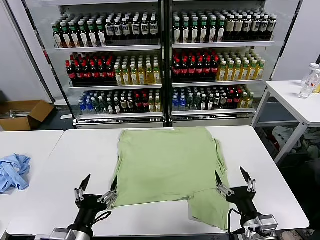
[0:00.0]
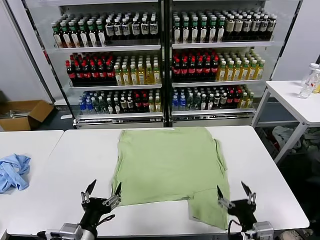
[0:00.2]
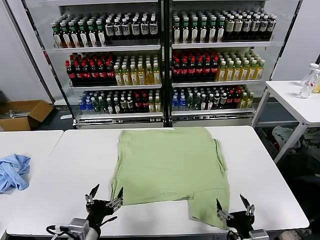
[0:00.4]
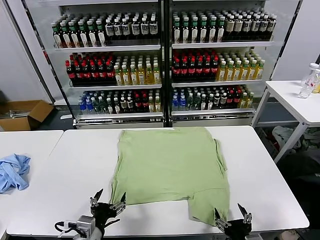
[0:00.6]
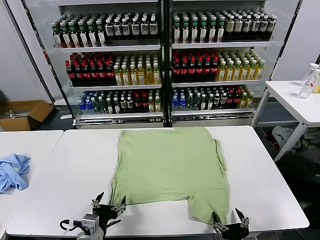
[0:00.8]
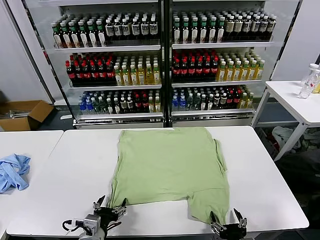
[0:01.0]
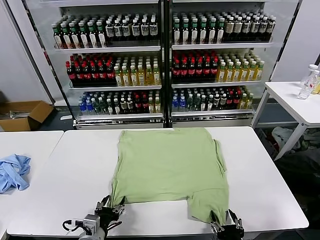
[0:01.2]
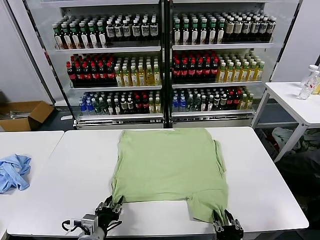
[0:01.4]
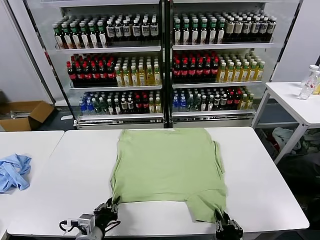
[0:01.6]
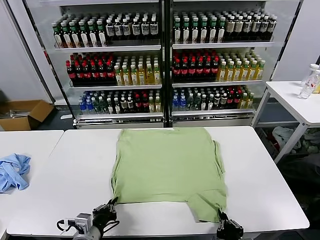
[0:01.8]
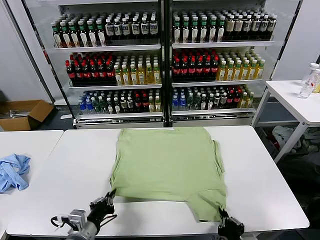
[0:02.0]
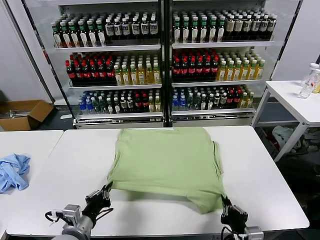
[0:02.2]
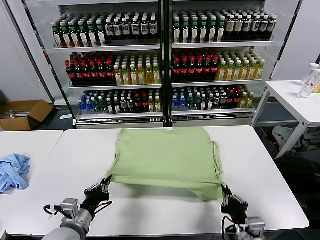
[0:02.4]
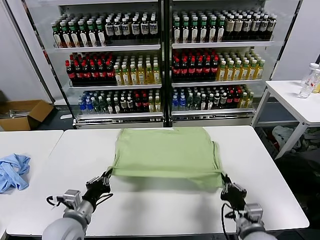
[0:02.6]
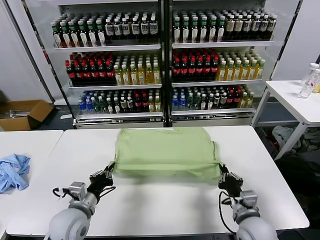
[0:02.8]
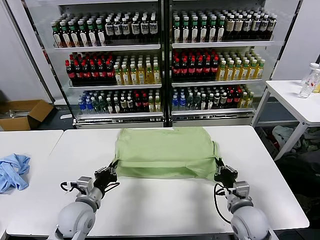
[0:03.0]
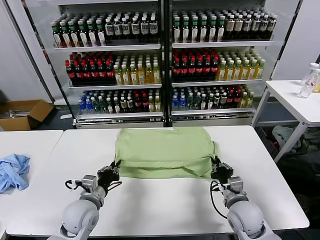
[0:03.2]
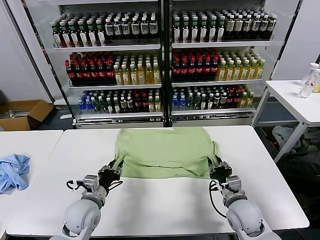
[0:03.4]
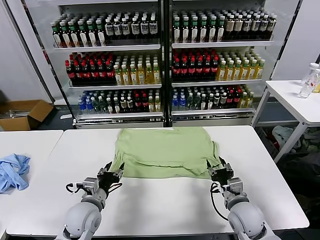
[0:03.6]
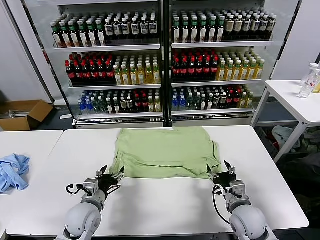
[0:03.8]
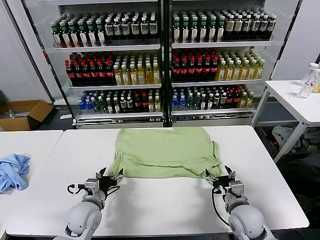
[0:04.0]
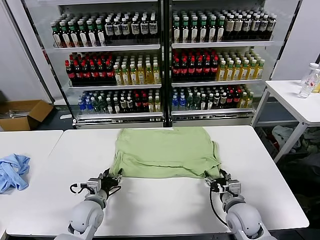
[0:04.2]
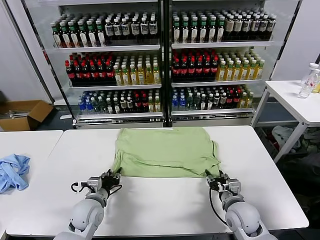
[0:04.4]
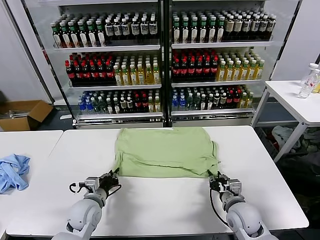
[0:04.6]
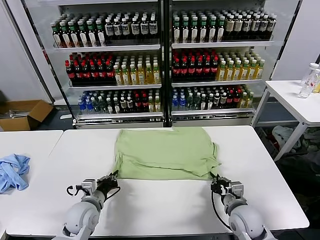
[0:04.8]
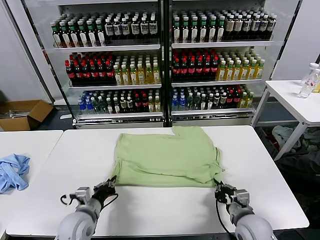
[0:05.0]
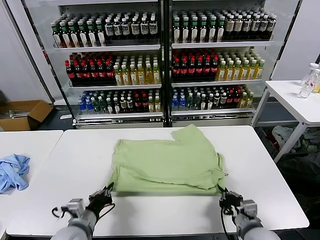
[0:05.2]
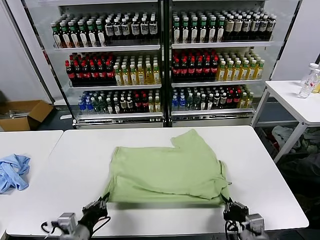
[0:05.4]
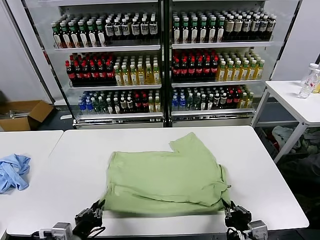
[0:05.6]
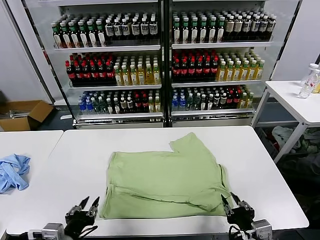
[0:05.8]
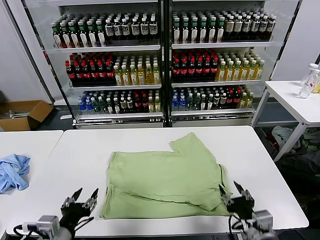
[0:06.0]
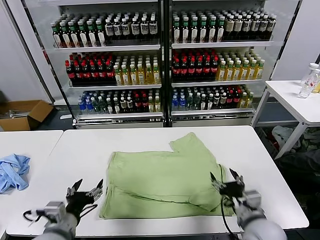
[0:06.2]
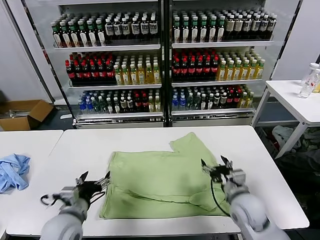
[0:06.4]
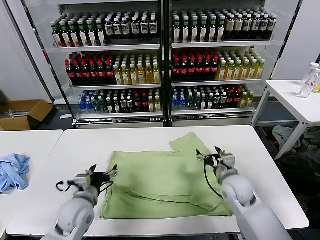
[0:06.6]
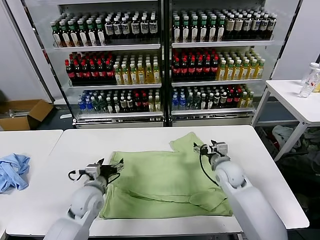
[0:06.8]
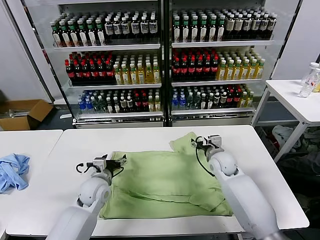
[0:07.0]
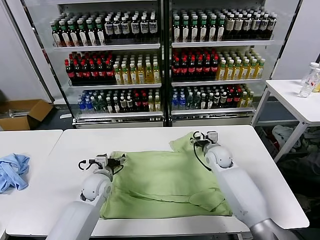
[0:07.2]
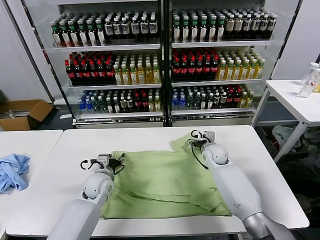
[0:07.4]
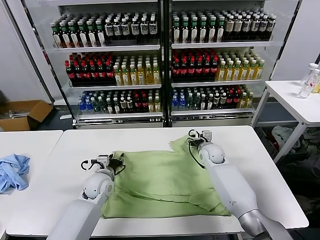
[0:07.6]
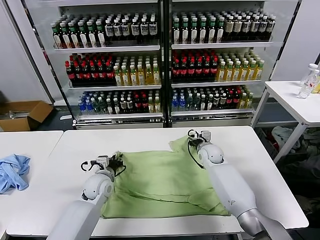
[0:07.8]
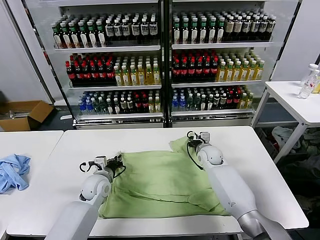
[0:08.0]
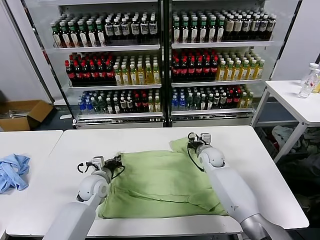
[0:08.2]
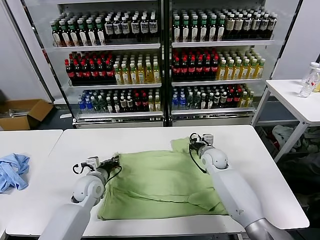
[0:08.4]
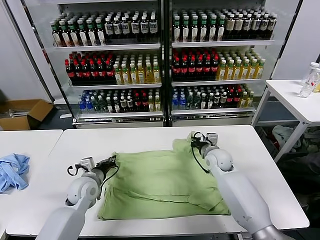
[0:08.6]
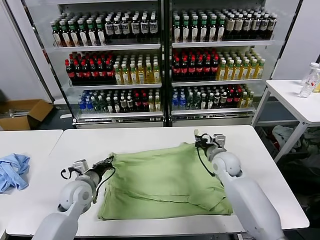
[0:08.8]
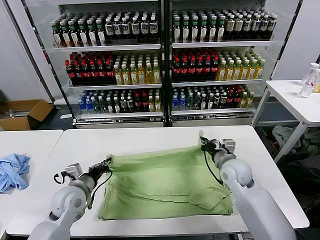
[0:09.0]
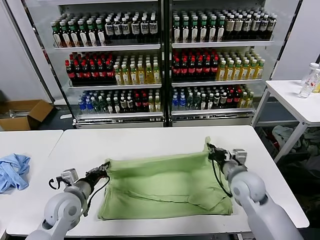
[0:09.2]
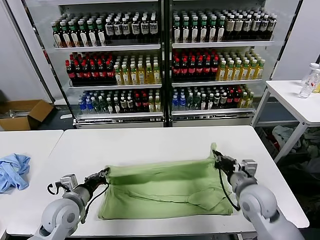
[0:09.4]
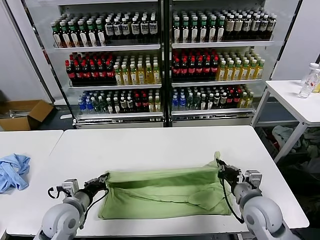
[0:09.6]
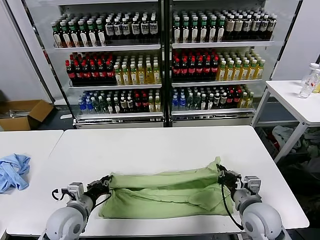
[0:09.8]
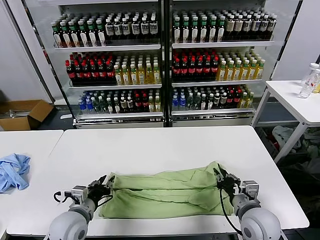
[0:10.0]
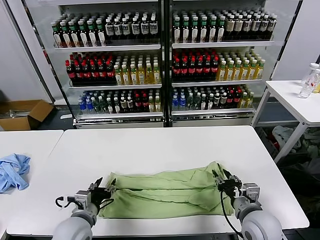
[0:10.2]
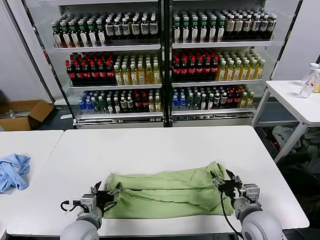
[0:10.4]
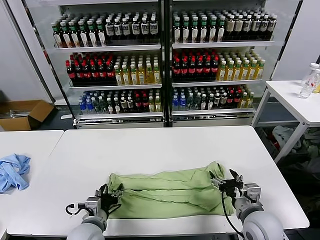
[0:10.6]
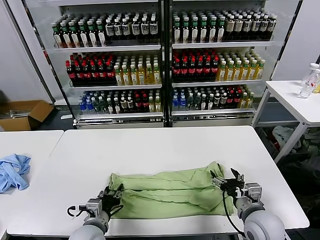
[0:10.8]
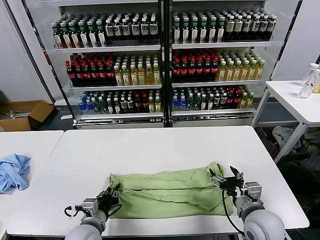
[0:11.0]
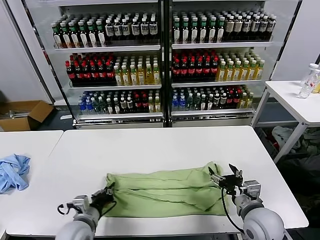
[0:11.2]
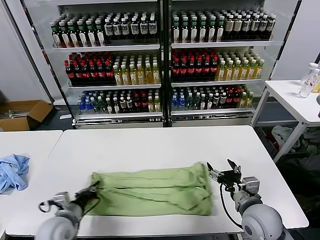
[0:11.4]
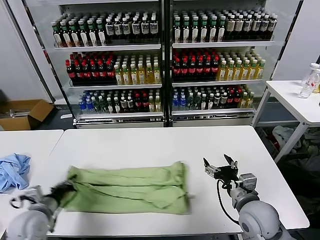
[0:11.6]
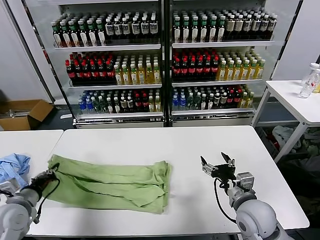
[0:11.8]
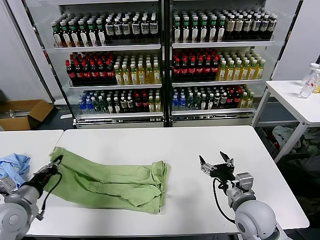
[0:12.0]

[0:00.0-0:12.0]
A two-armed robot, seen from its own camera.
Task of the whole recording: fold and organize the clothes.
Step, 0:00.0 to 0:01.8: use both grippers simultaneously to clamp the lower edge of the clothing fabric.
Step, 0:02.0 to 0:03.4: use both grippers to drag the lower edge of the fabric forward and fold it over the upper edge.
Step, 0:03.6 to 0:05.6: Drag the clothes downward with both gripper.
Step, 0:06.0 to 0:08.2: use both grippers simultaneously to clamp the upper edge of the clothing fabric.
Step, 0:08.4 to 0:10.0: use both grippers to drag the upper edge of the fabric backward and fold it over the lower edge.
Step, 0:10.2 to 0:11.2: use the left gripper to clamp the left edge of the fabric.
0:01.6 to 0:03.0: The right gripper goes roughly 15 cm forward. Meanwhile the left gripper moves forward, about 10 cm.
0:03.0 to 0:04.4: The left gripper travels downward by about 5 cm, and opens, then closes again. The right gripper opens its fingers.
0:04.4 to 0:06.0: Both grippers travel together backward and upward, some 15 cm. The left gripper opens its fingers. Meanwhile the right gripper closes, then reopens.
0:06.0 to 0:07.6: Both grippers travel together forward, roughly 30 cm.
0:07.6 to 0:09.0: The right gripper heads backward and upward, covering about 15 cm, and closes, while the left gripper travels backward, to the left and upward by roughly 10 cm, and closes.
0:09.0 to 0:10.4: The right gripper goes about 15 cm backward, and opens up. The left gripper shifts about 10 cm backward and to the right, and opens up.
0:10.4 to 0:12.0: The left gripper shifts approximately 20 cm to the left and upward, and closes up.

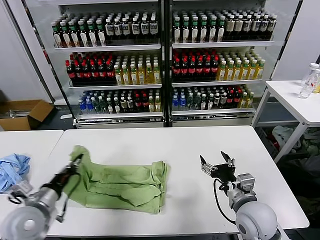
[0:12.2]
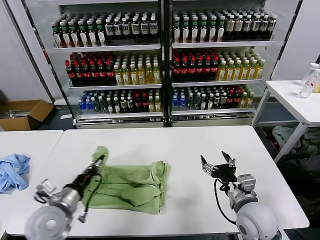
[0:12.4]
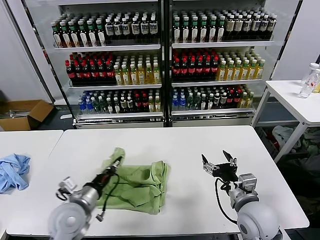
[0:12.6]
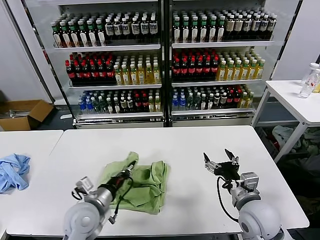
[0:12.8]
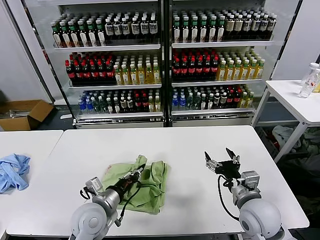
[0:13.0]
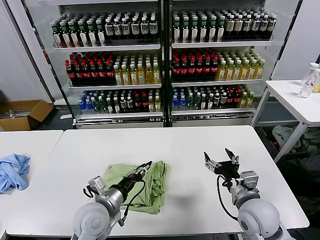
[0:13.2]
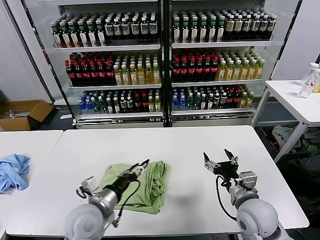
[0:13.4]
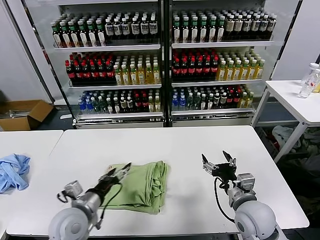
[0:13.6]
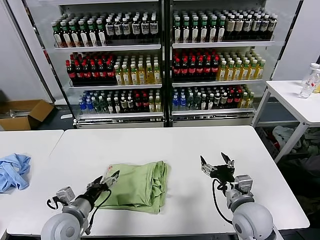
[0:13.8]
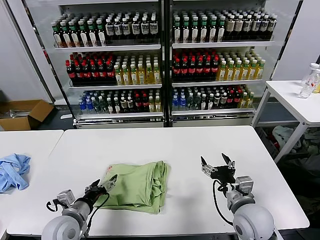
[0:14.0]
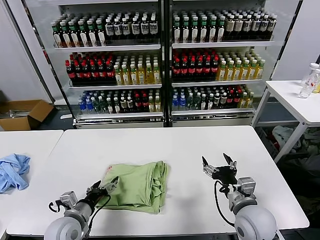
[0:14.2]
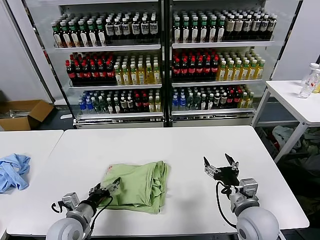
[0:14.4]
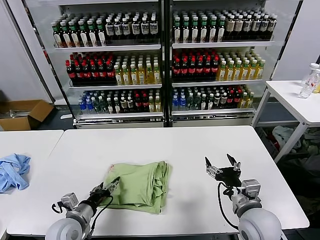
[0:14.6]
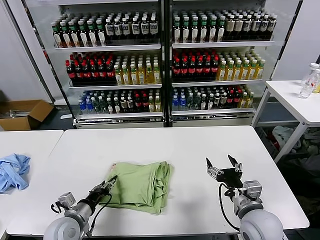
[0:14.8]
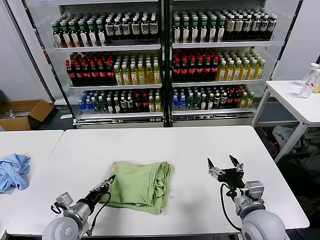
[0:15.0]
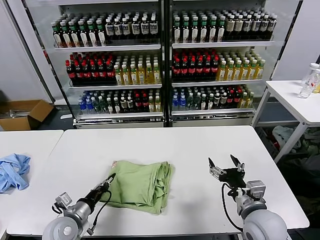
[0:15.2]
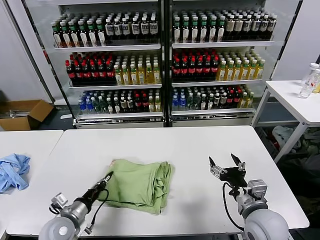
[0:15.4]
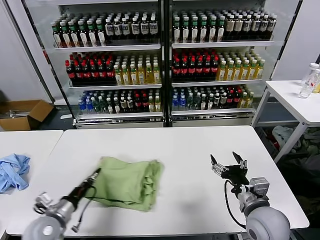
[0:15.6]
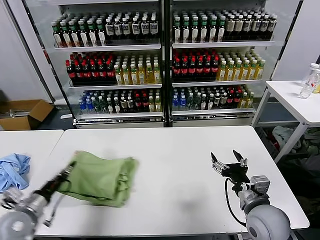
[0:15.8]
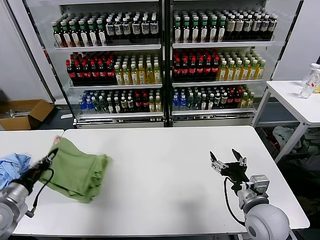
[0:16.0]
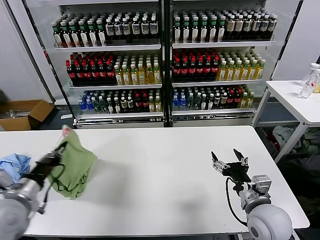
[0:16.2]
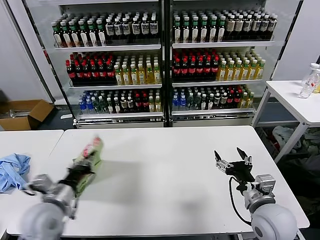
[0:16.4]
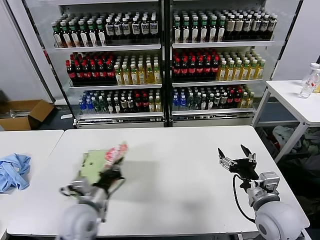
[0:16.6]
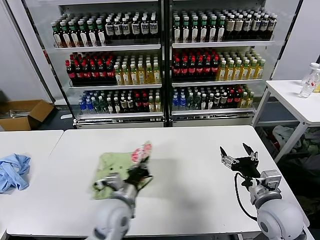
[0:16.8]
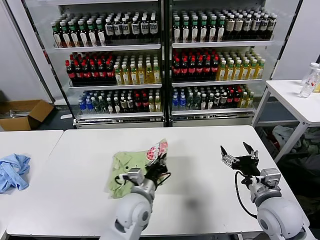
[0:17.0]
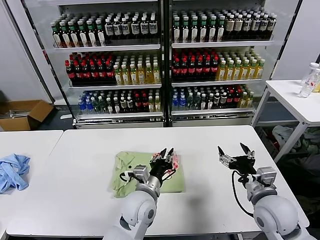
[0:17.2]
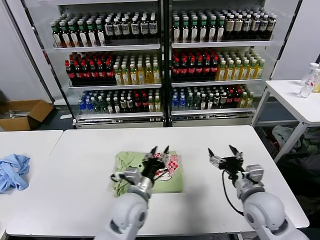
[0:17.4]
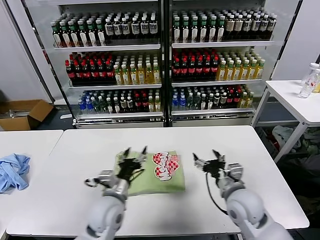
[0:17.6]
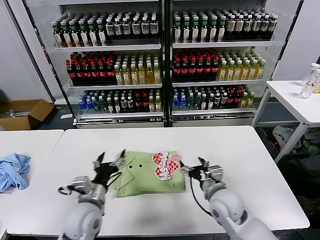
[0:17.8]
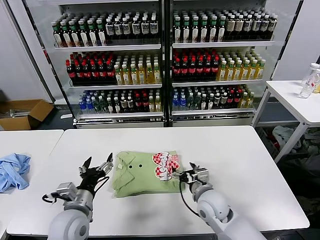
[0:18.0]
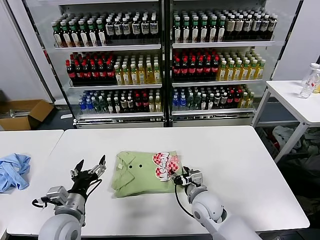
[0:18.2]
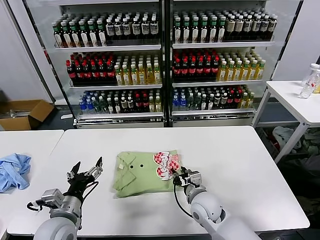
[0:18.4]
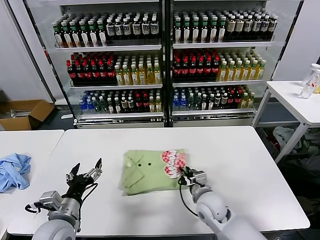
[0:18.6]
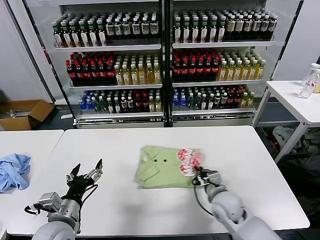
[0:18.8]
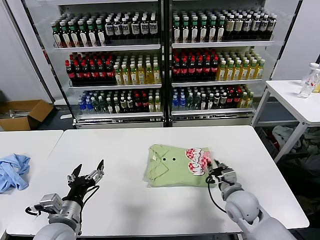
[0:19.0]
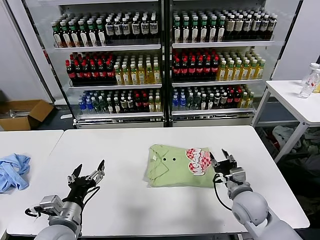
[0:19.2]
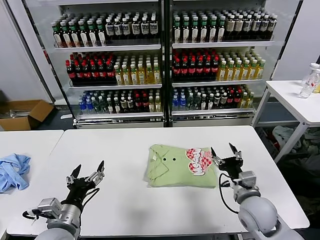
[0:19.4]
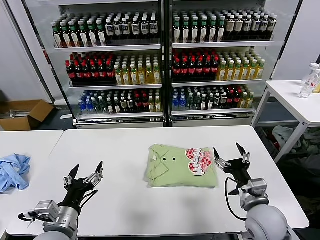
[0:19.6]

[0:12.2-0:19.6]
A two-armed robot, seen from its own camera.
Task of the whole recording: fold and organize the clothes.
Step, 0:12.2 to 0:13.2: use the left gripper to drag the left edge of the fabric to the left and folds it over the right edge.
Step, 0:13.4 to 0:17.0: Flip the folded clothes over with left gripper.
Step, 0:17.4 to 0:19.0: Drag the clothes to the center of the table.
0:12.2 to 0:13.6: The left gripper heads to the right, covering approximately 10 cm, and opens.
0:13.6 to 0:15.2: The left gripper travels downward and to the left by roughly 10 cm, and closes up.
0:15.2 to 0:16.6: The left gripper goes about 10 cm upward, and moves about 15 cm to the left and comes back.
0:16.6 to 0:18.2: The left gripper travels to the right and back again, about 20 cm each way, and opens its fingers. The right gripper goes about 20 cm to the left, downward and forward.
0:18.2 to 0:19.6: The left gripper travels backward by some 5 cm. Meanwhile the right gripper shifts about 15 cm to the right, backward and upward, and closes, then opens again.
